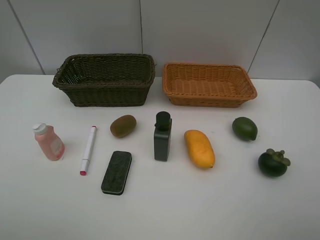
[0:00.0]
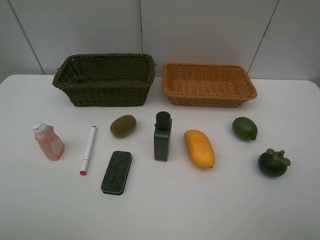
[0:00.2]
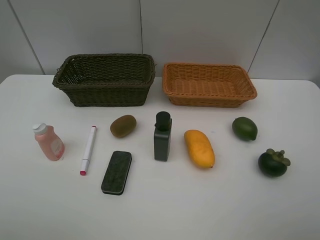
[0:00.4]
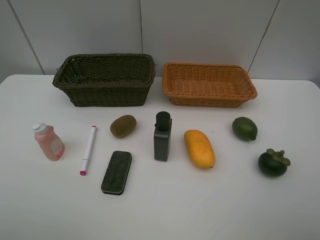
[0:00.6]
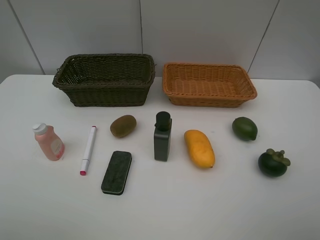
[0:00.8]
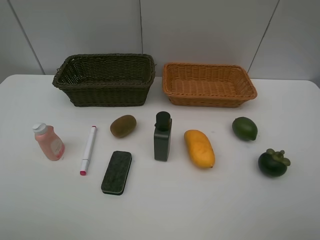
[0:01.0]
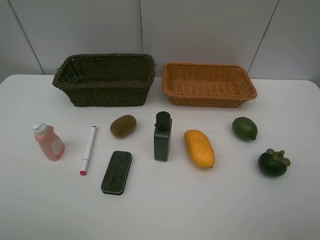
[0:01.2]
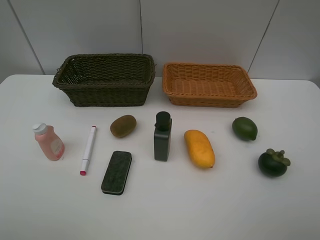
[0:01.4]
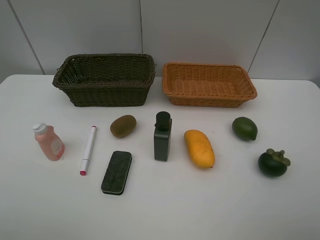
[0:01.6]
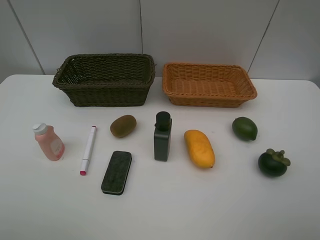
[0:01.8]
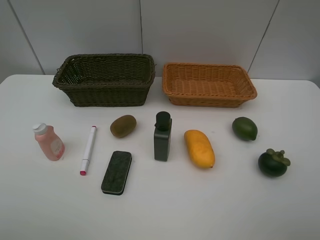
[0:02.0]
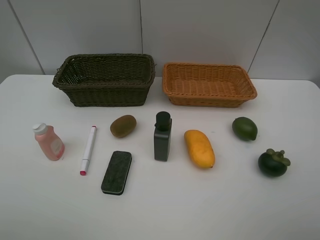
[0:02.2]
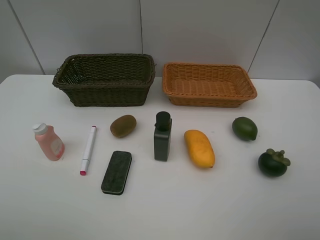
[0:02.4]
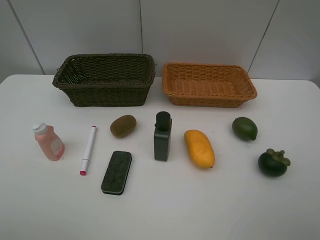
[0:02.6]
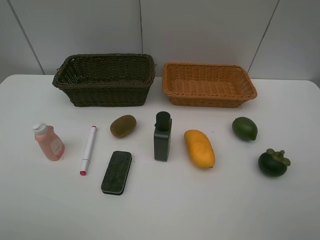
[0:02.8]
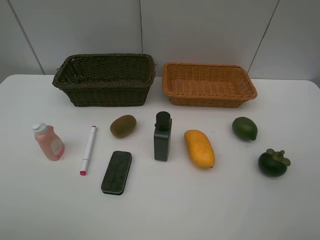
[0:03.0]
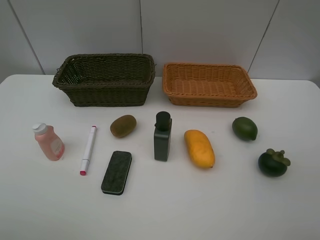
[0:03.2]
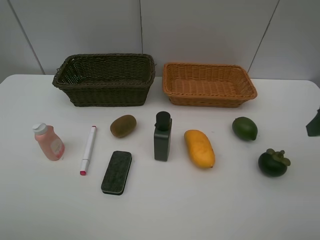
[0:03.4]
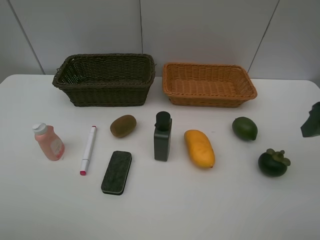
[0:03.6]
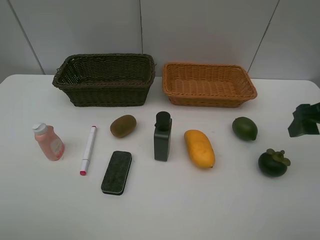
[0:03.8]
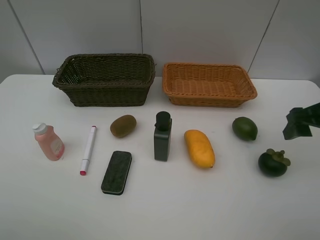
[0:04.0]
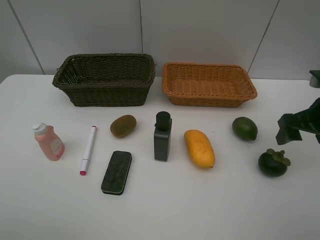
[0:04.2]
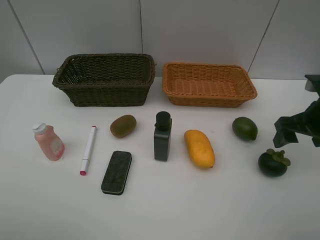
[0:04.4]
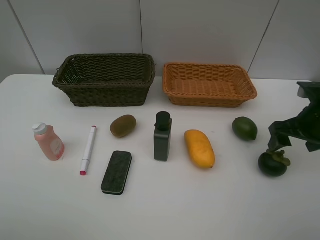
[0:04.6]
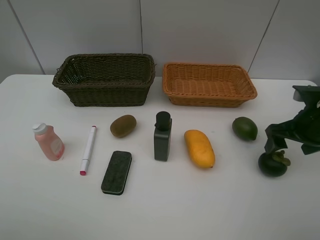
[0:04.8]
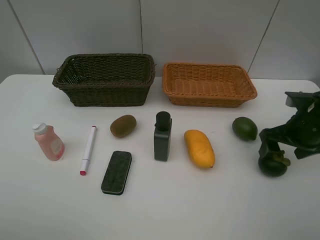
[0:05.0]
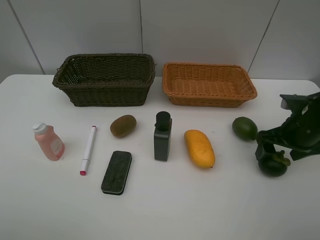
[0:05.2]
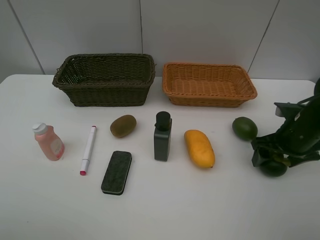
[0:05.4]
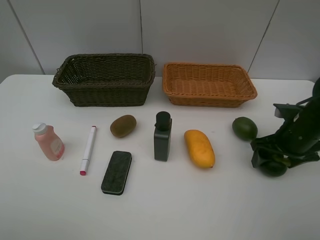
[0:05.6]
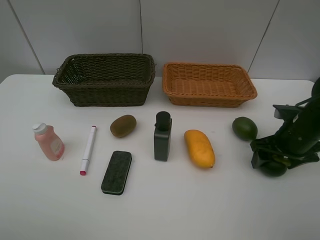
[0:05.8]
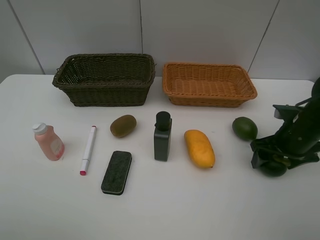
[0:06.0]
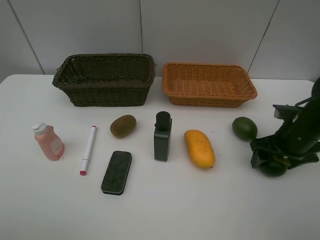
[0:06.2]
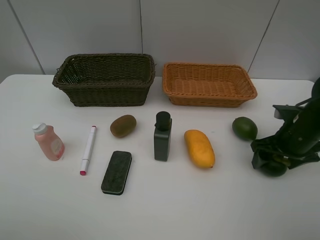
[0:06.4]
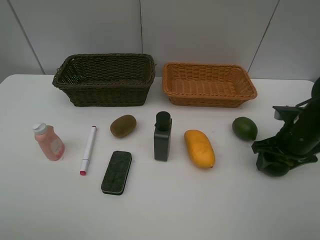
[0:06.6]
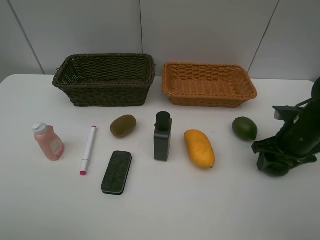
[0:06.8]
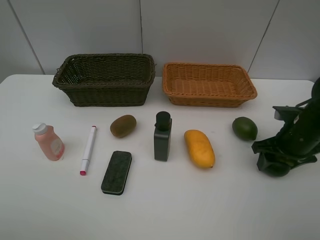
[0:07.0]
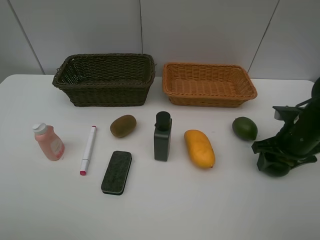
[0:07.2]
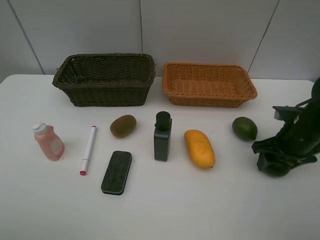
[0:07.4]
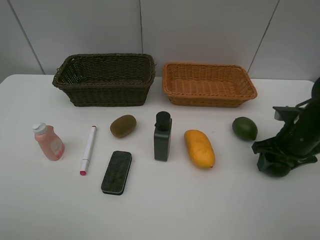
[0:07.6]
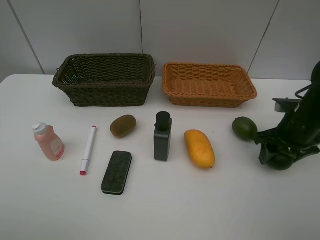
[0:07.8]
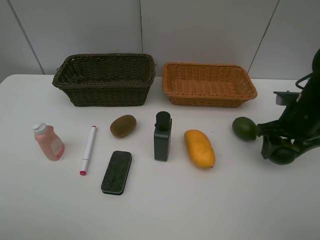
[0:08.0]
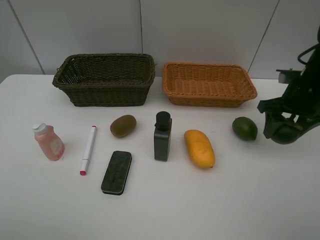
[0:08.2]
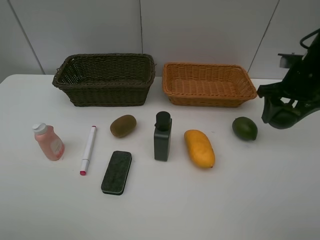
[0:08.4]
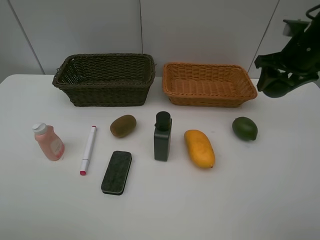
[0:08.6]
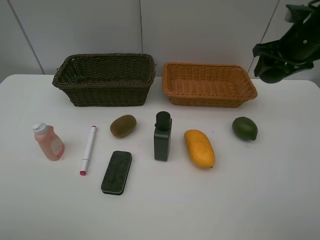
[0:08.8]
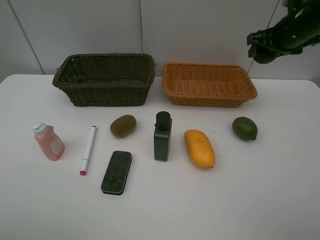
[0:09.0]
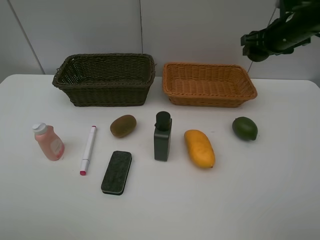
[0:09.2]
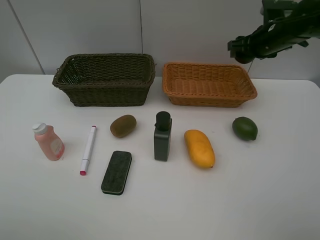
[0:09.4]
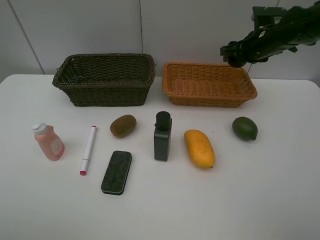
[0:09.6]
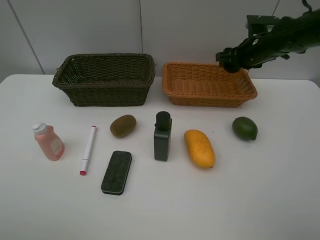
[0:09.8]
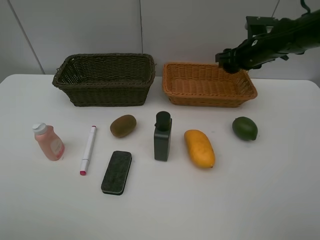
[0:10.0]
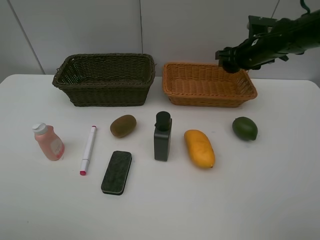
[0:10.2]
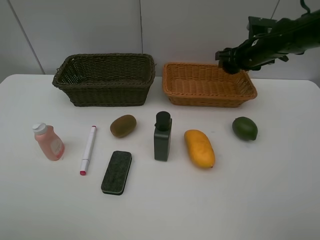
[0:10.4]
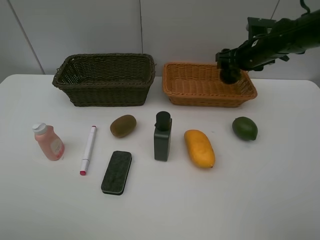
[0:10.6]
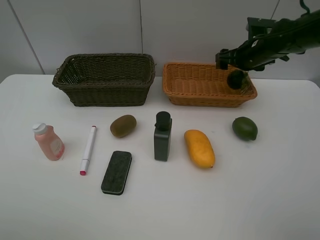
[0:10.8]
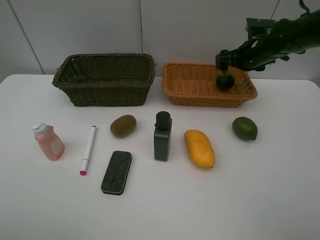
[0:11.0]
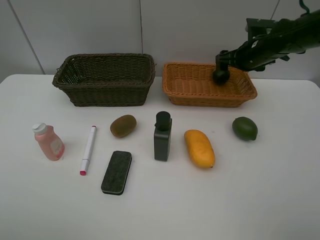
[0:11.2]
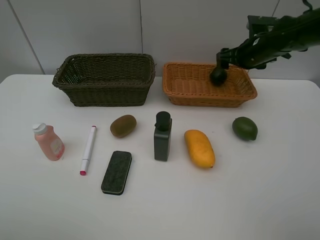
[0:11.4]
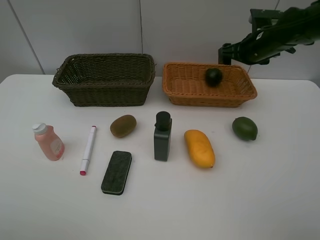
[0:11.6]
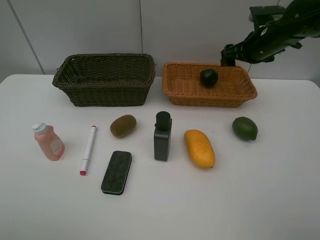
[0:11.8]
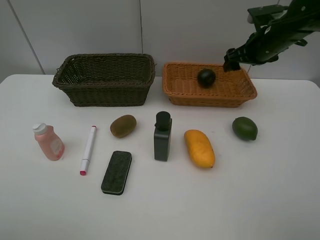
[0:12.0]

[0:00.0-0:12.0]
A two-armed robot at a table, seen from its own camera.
Task of the whole recording: Place multiple objects separately in different baskets.
Step, 0:00.0 to 0:08.0: Pick up the mangosteen with right gripper.
Step, 0:08.2 to 0:11.0: Place the mangosteen in the light basket with right gripper.
0:00.0 to 0:01.6: Both grippers stay put.
0:03.0 to 0:04.4: The right gripper goes some 15 cm forward and downward.
0:04.4 to 0:06.0: The right gripper moves downward, some 5 cm.
0:06.0 to 0:07.6: The right gripper closes its fingers.
0:07.6 to 0:09.0: The right gripper heads forward and upward, covering about 20 cm.
0:09.0 to 0:10.4: The right gripper goes roughly 5 cm downward.
0:10.4 to 0:12.0: The right gripper moves about 5 cm, and opens its fingers.

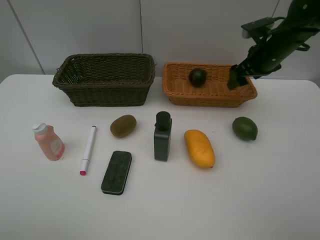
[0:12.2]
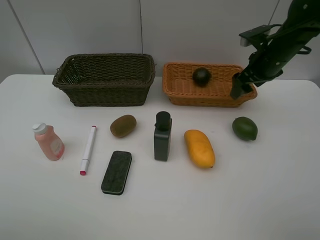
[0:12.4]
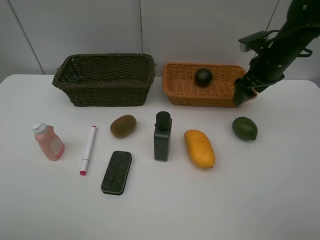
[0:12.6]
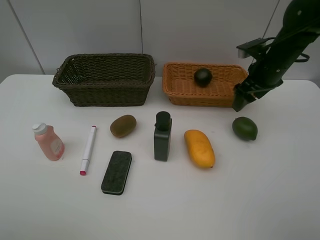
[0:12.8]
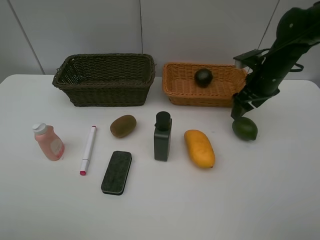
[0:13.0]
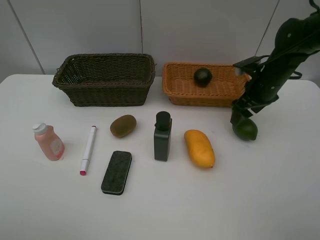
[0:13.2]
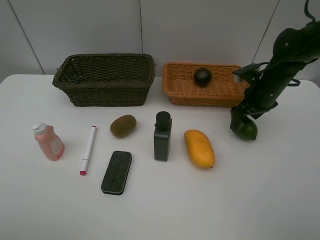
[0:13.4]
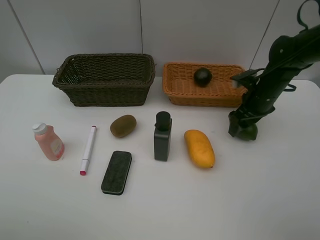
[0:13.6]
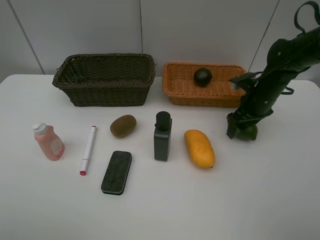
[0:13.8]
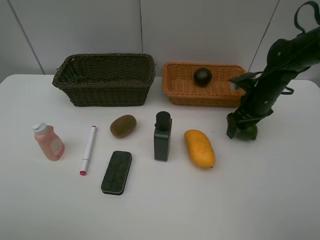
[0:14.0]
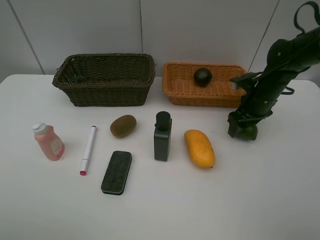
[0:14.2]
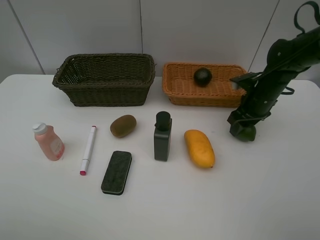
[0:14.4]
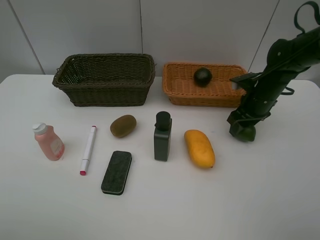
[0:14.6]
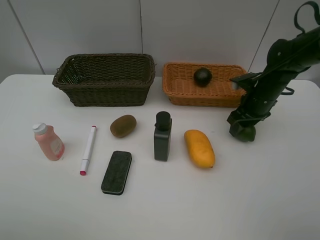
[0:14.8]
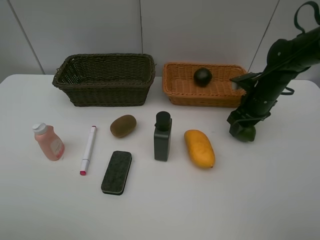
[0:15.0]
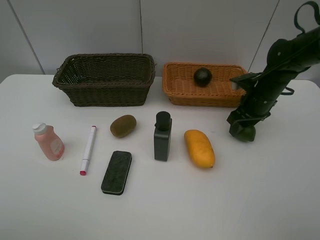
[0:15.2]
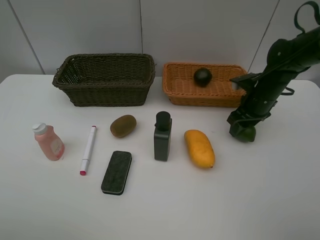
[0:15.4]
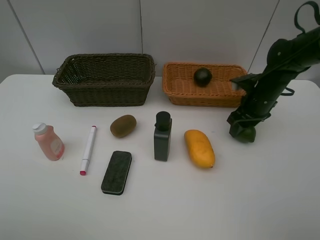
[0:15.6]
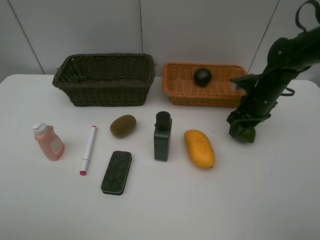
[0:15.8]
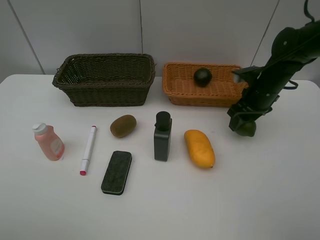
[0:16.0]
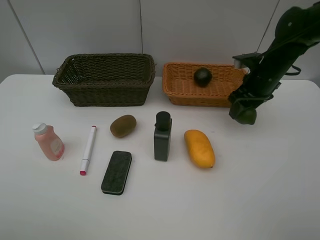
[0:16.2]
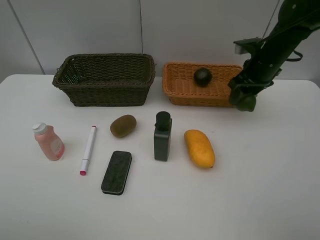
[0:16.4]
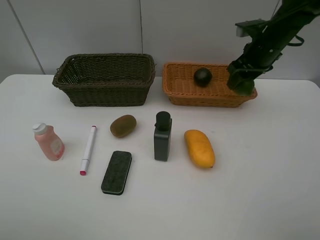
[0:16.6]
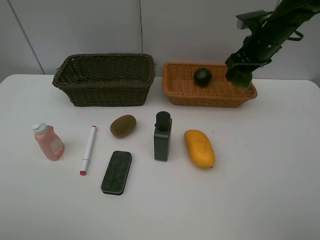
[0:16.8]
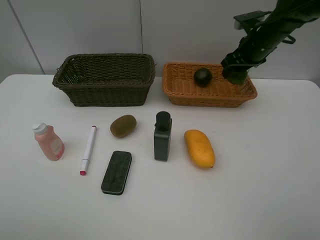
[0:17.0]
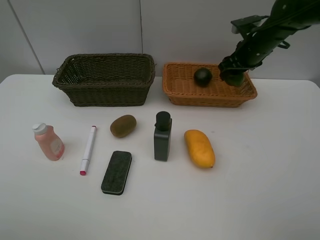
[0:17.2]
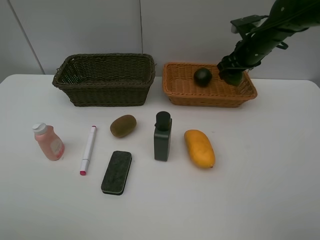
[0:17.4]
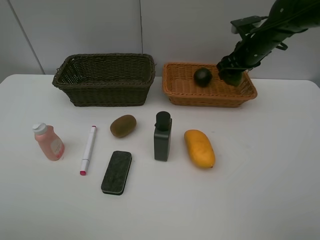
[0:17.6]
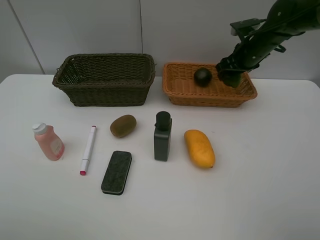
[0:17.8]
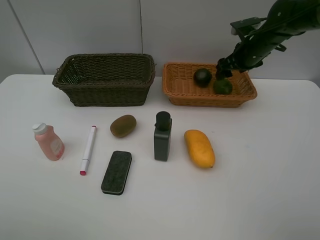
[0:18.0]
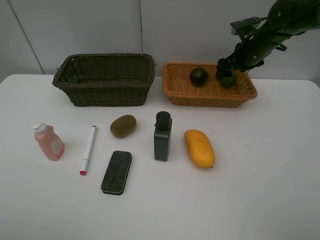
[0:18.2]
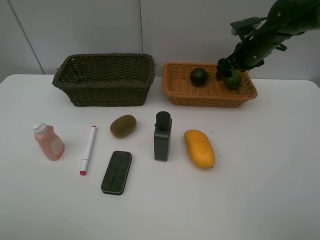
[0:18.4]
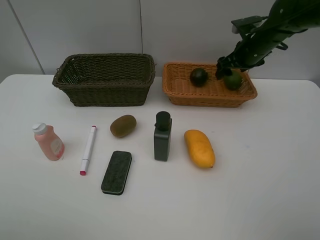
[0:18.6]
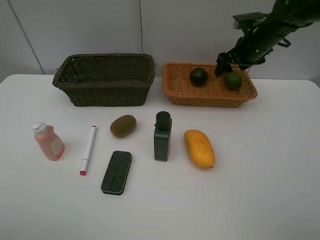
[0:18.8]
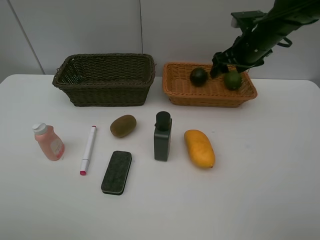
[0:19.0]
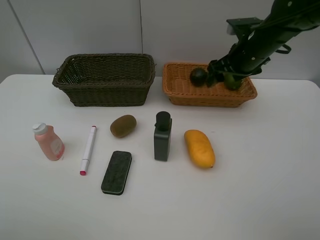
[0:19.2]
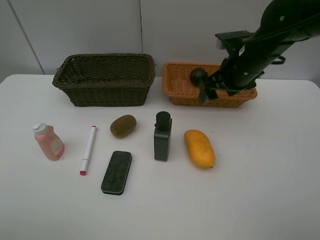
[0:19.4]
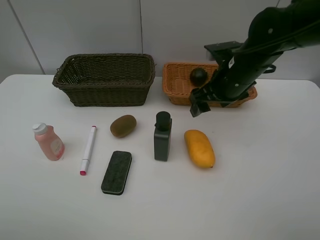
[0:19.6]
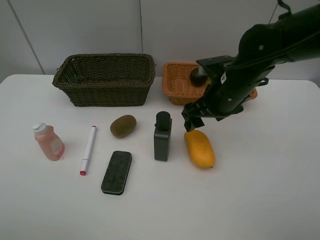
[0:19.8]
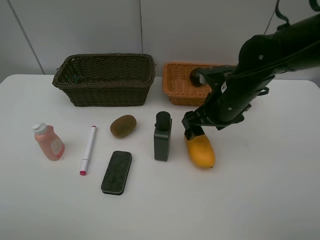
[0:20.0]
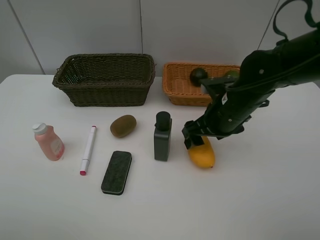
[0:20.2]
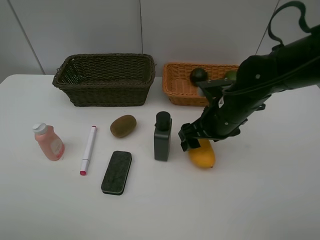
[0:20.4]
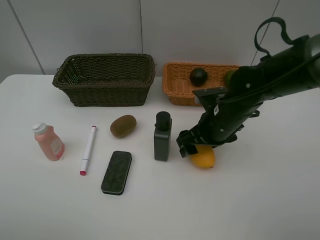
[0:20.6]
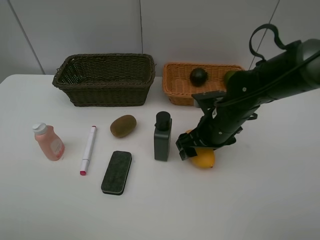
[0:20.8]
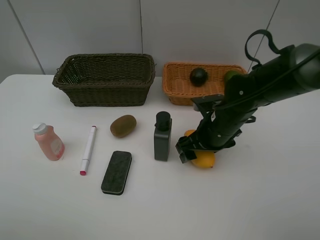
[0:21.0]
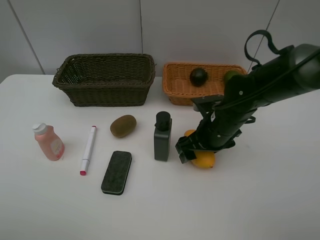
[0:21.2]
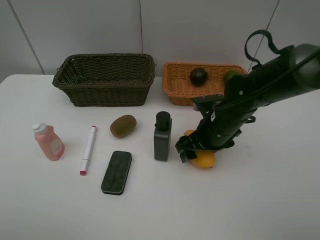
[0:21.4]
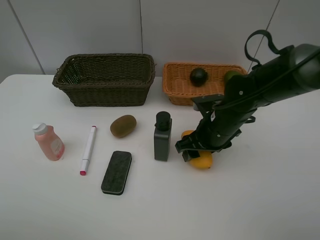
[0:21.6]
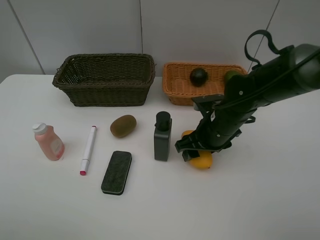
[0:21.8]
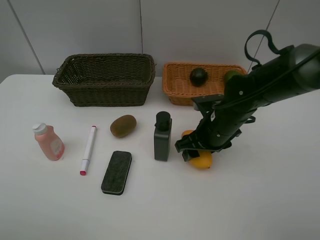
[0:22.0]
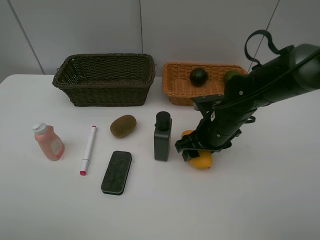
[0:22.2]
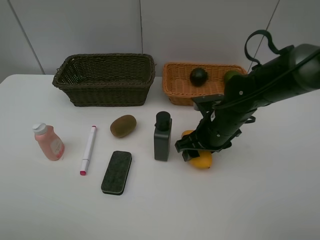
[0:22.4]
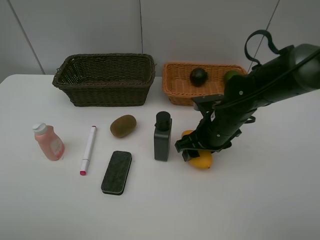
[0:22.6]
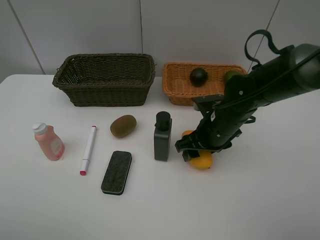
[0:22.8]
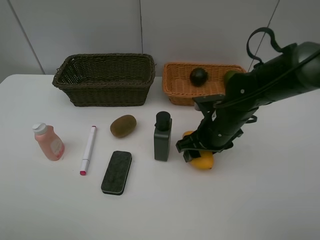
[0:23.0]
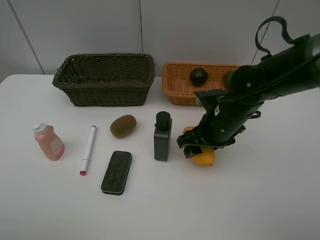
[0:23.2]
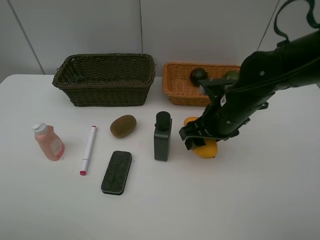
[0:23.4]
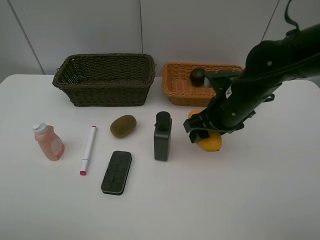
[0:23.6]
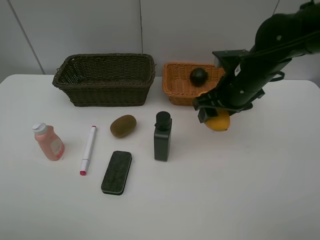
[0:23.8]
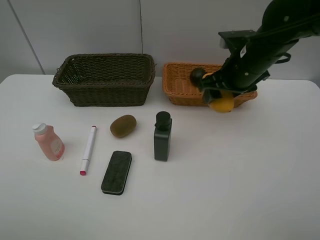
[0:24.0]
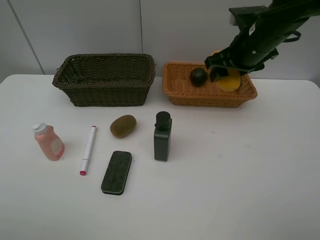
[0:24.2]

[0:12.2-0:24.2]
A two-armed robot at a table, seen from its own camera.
Task of the whole recording: Place multiple objects separately in different baskets.
Step, 0:12.2 to 0:16.2: Pick up the lime with right gripper.
Step, 0:16.4 to 0:18.8: Place the lime in the light basket with right gripper.
Step, 0:19.0 to 0:23.4: Pick up the mango with right gripper.
0:12.2 to 0:13.8: The right gripper shifts approximately 10 cm downward.
0:15.2 to 0:16.6: The right gripper is displaced upward by some 10 cm.
0:16.6 to 0:18.2: The right gripper ends up roughly 5 cm from where it was, and opens up.
0:18.2 to 0:19.8: The right gripper moves backward and to the left, some 20 cm.
0:19.8 to 0:21.2: The right gripper is displaced downward by some 5 cm.
0:22.6 to 0:24.2: The right gripper goes some 15 cm upward, forward and to the right.
